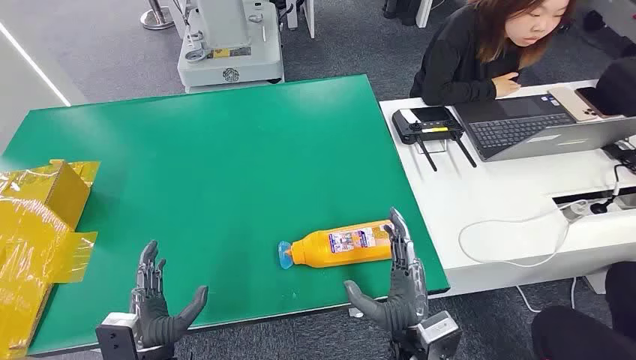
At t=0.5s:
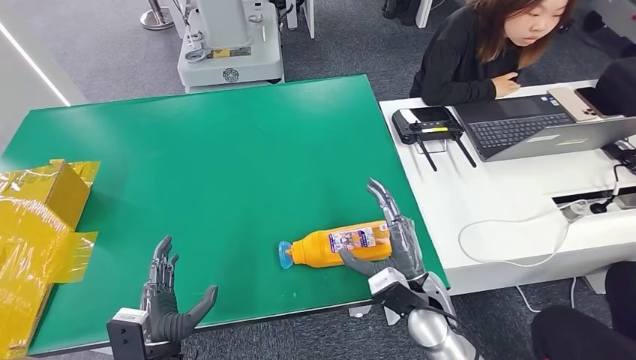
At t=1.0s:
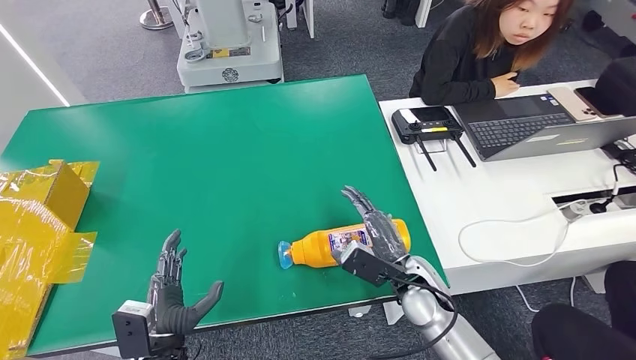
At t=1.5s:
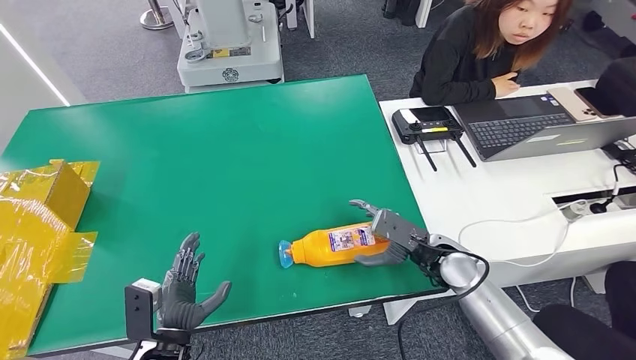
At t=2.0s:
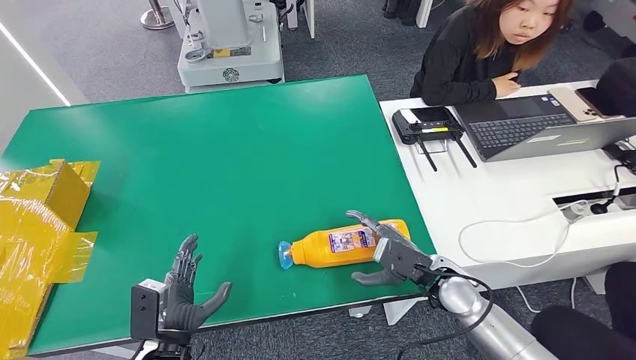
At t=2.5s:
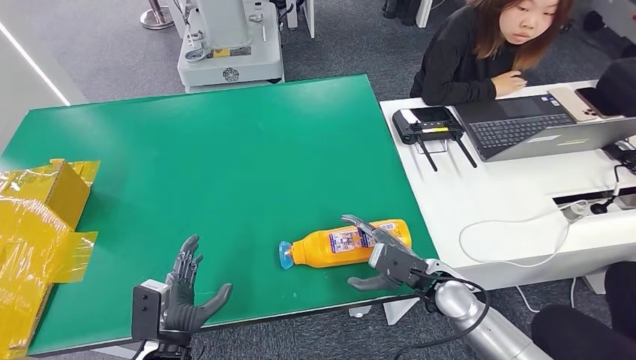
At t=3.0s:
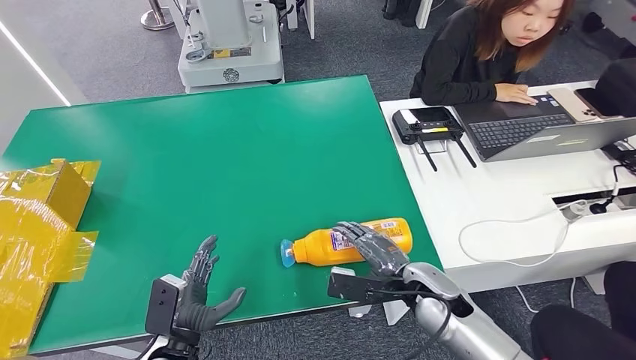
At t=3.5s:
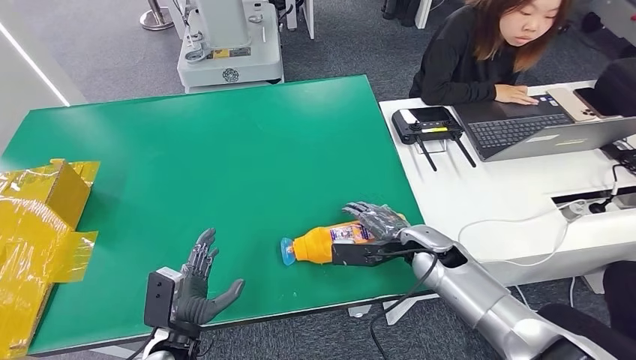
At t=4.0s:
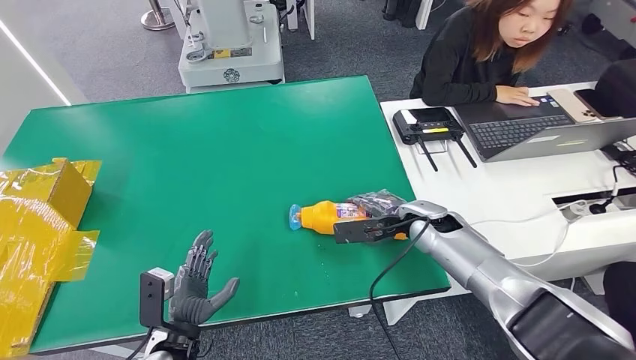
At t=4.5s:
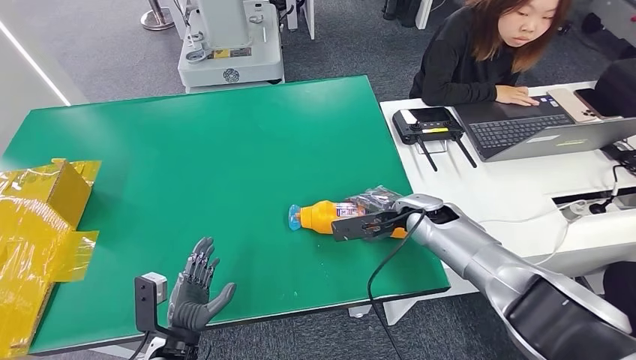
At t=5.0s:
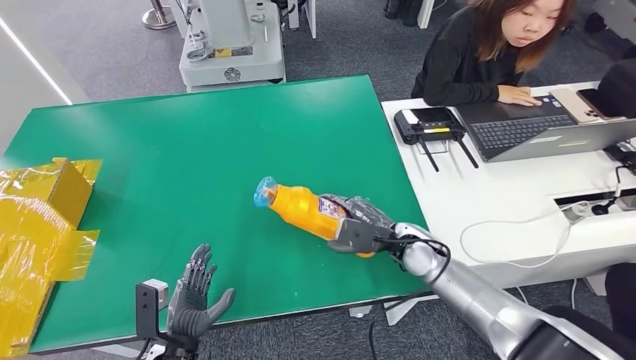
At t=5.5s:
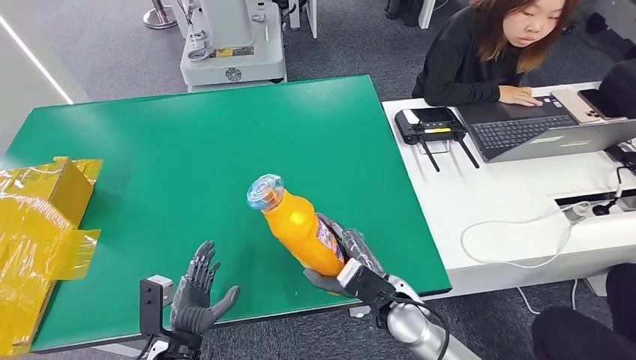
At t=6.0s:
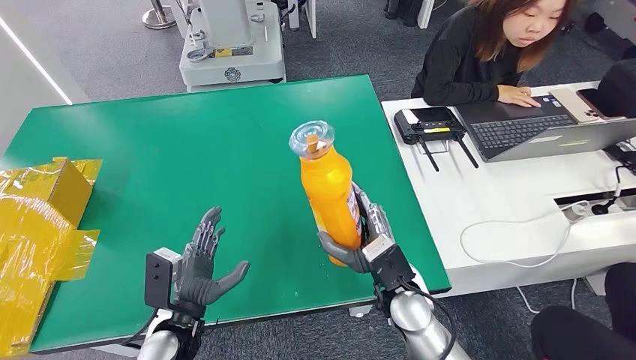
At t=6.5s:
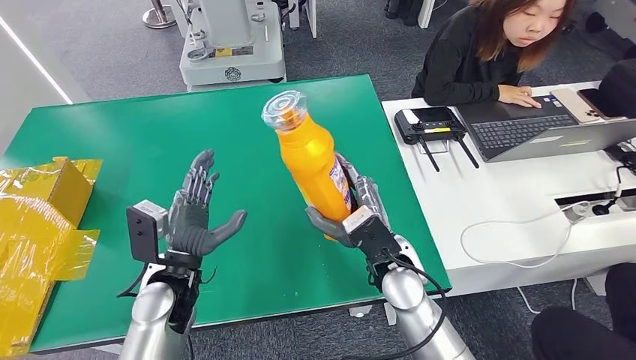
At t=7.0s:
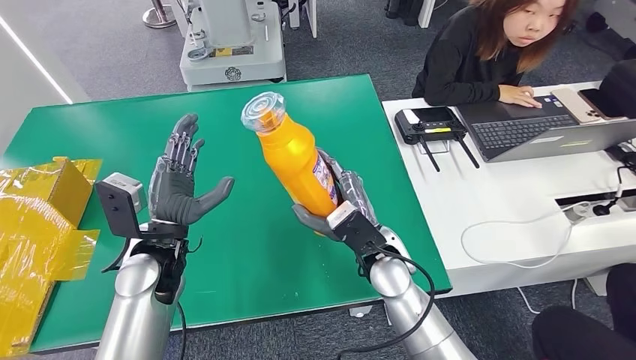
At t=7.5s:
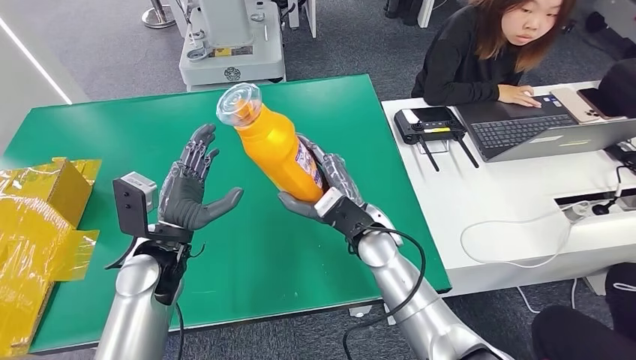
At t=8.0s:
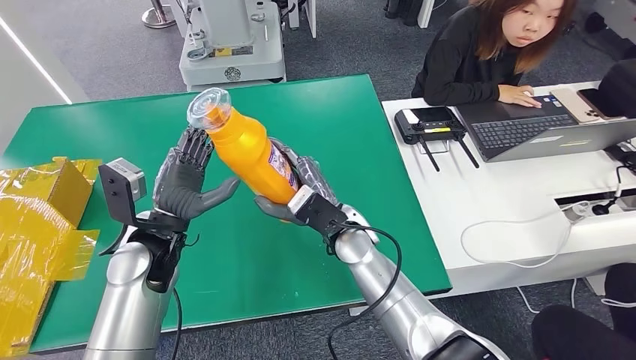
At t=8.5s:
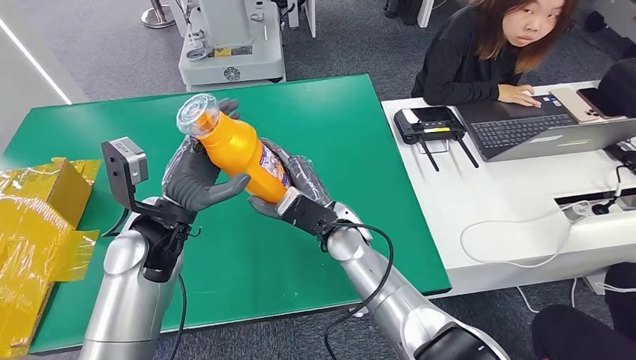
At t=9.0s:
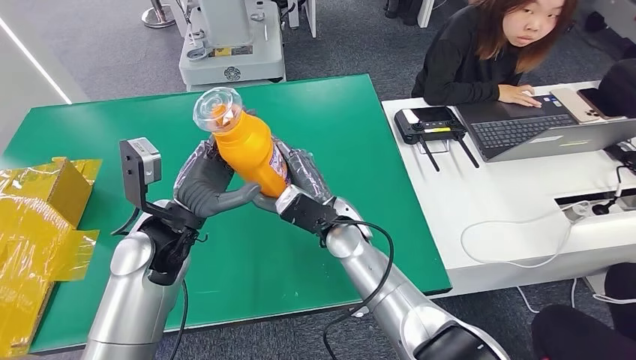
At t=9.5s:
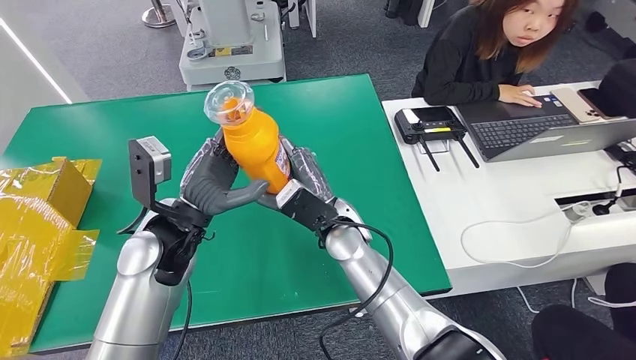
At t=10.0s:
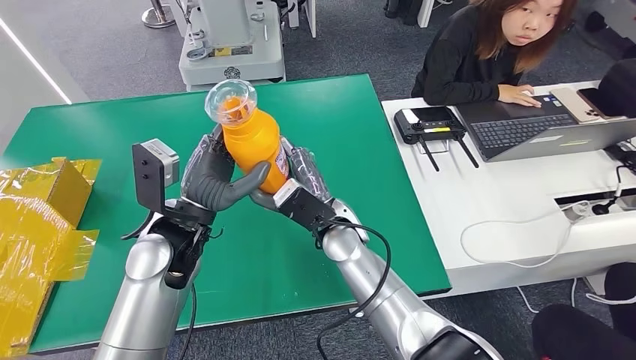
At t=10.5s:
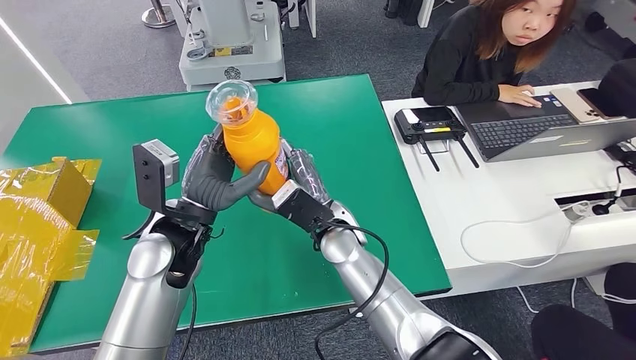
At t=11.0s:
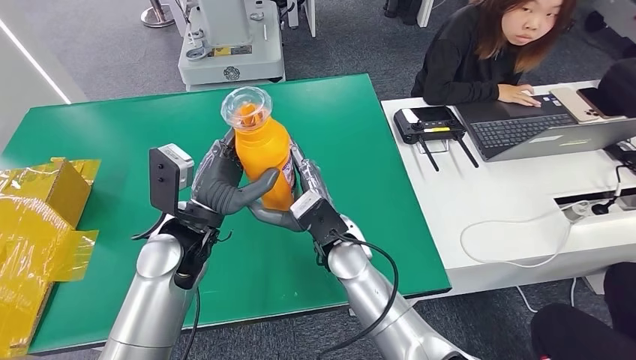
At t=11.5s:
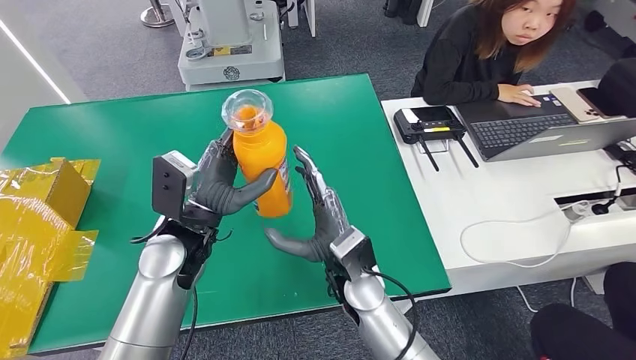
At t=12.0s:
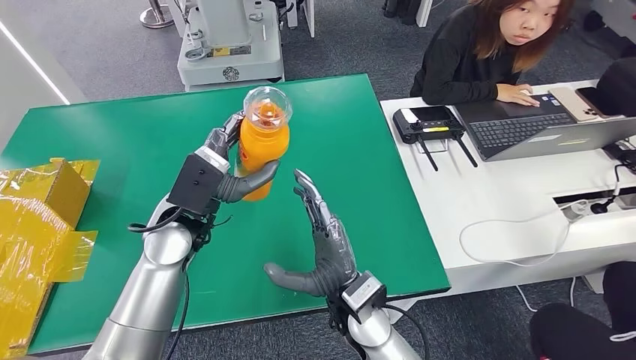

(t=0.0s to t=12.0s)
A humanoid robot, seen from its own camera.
Step, t=0.0s - t=6.5s: Pick up the bottle from the table.
t=2.0s - t=4.0s: The right hand travels forward by roughly 10 cm.
t=4.0s - t=6.0s: The right hand goes approximately 20 cm to the left and backward.
t=6.0s - t=8.0s: The left hand goes approximately 15 cm upward and forward. The right hand goes about 10 cm forward and to the left.
t=8.0s - t=10.0s: The left hand ends up about 5 cm from where it was.
t=10.0s - t=12.0s: The right hand goes some 10 cm backward.

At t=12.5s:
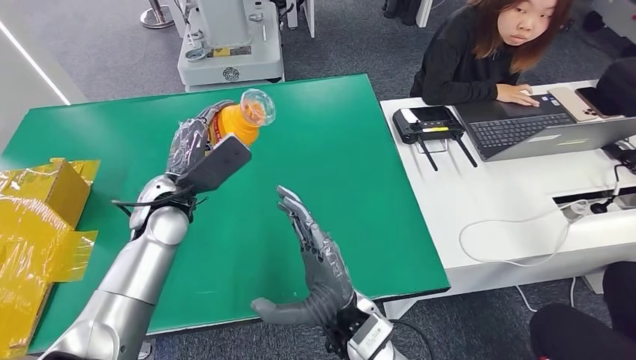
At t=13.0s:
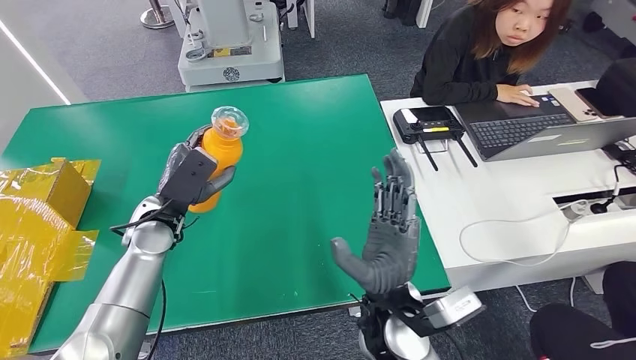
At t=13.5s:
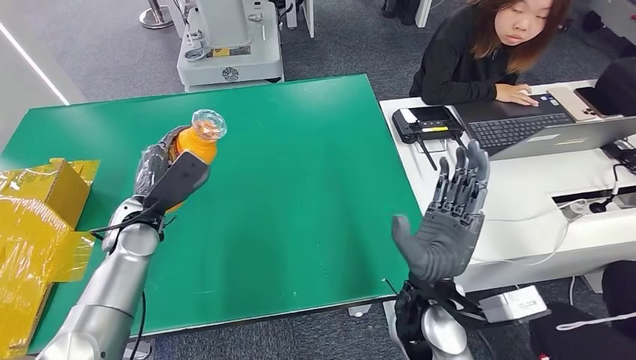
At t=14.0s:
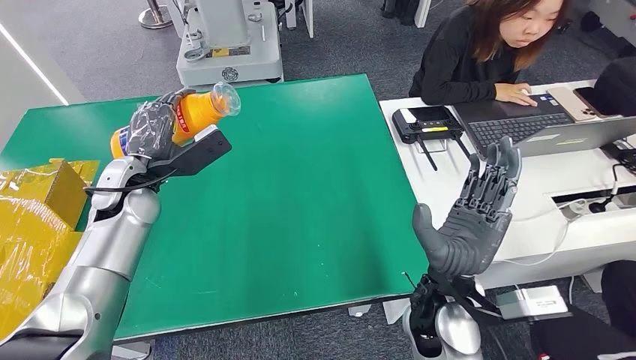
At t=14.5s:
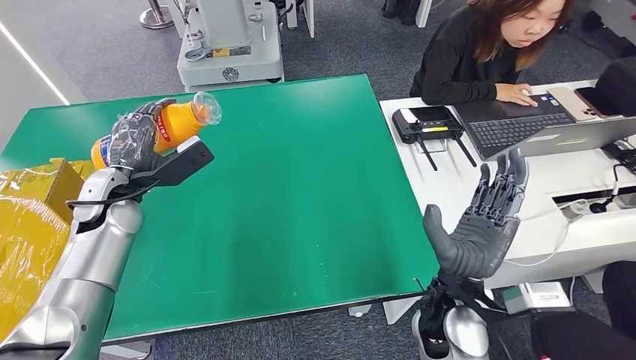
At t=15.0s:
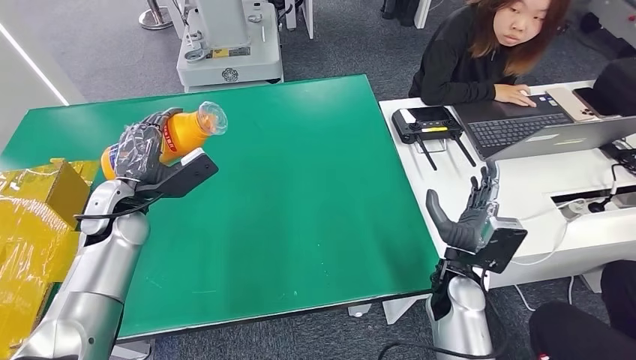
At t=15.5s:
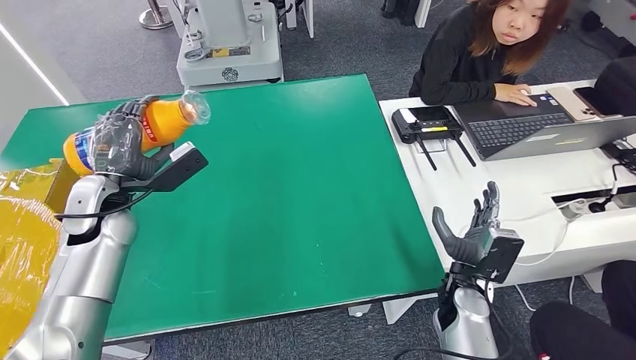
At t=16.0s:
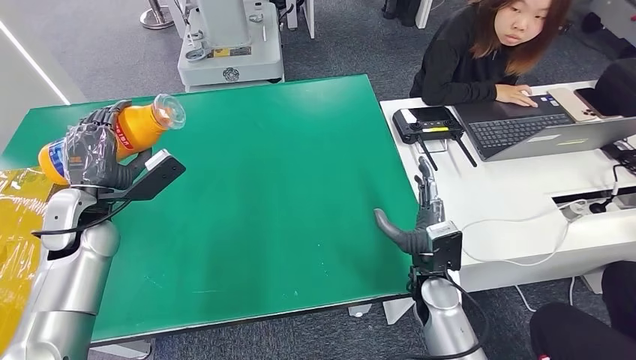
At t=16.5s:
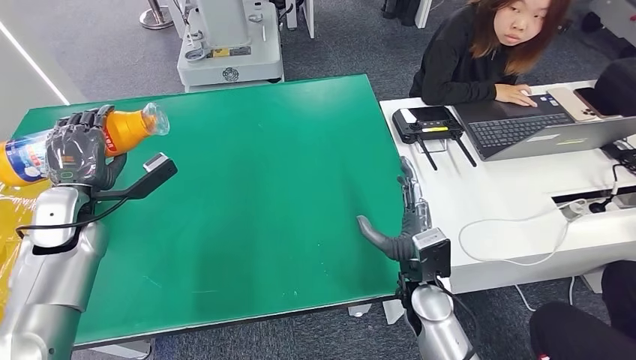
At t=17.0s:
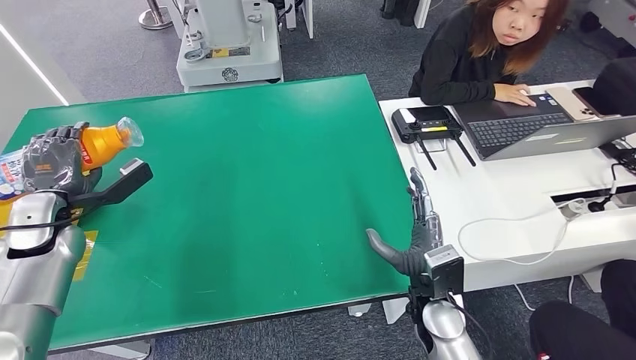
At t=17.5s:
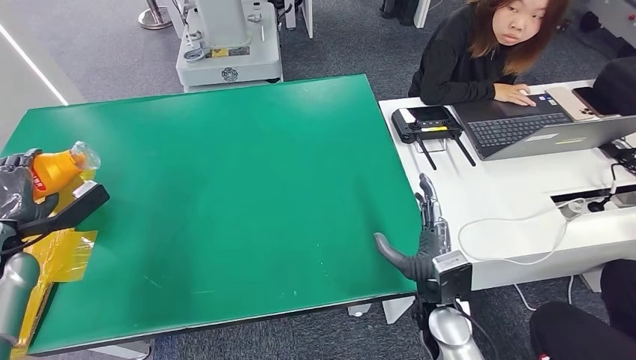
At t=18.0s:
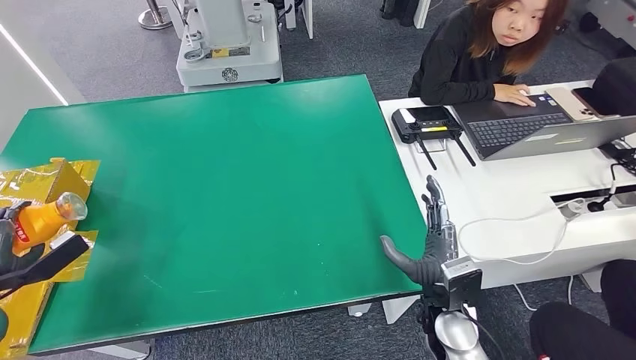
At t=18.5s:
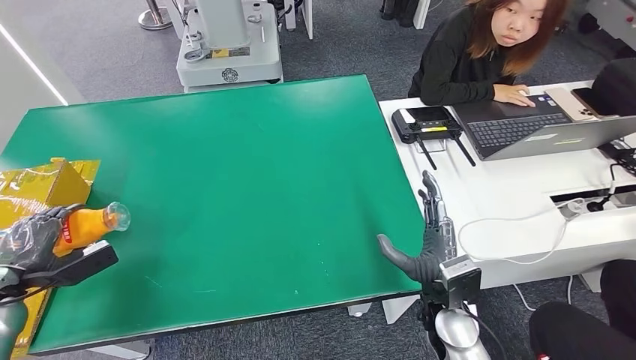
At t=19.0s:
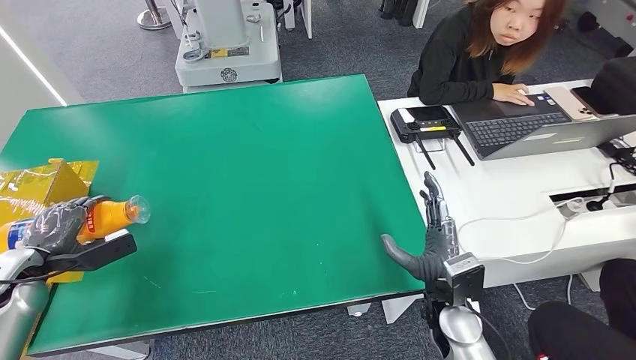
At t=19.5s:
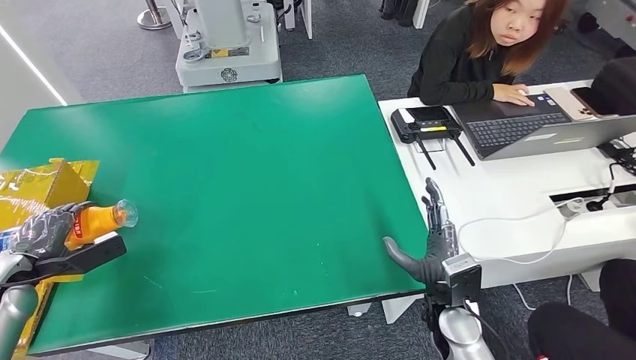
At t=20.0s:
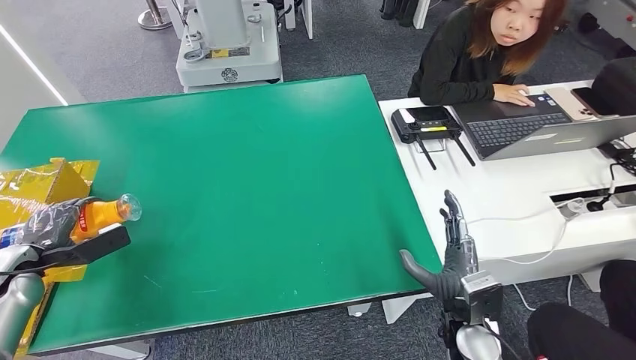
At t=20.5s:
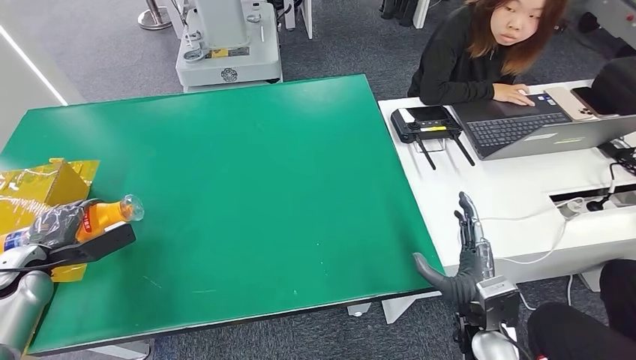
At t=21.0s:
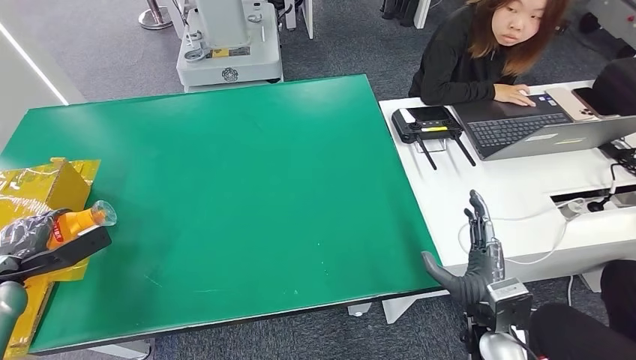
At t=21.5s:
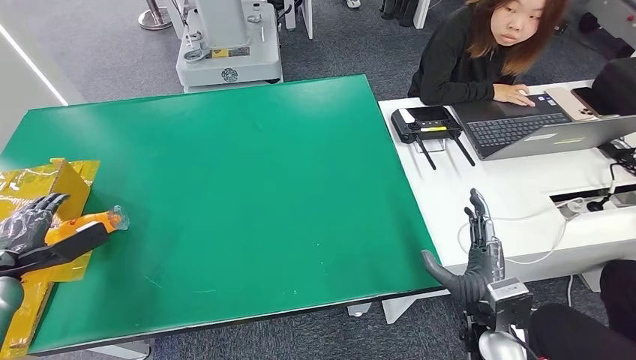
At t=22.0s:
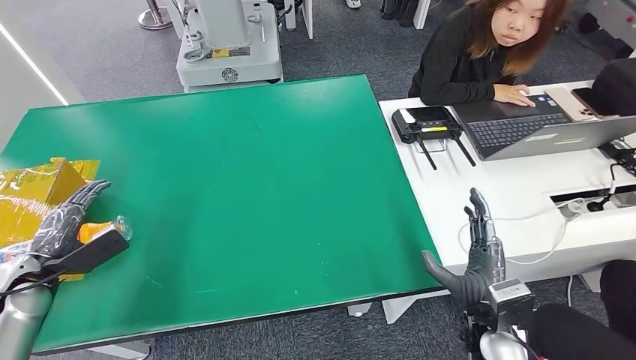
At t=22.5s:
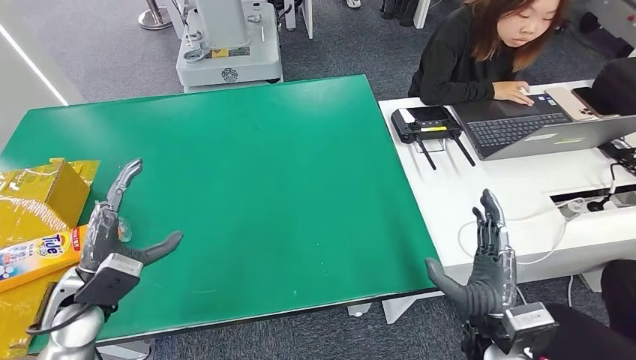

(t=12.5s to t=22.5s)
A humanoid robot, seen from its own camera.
Step, t=12.5s - t=22.5s: Turn the bottle to the front side.
t=16.5s - t=18.5s: The left hand goes about 20 cm to the left, downward and backward.
t=18.5s - t=20.5s: The right hand is displaced to the right by about 5 cm.
t=20.5s - t=22.5s: The left hand is displaced to the right and backward by approximately 20 cm.
